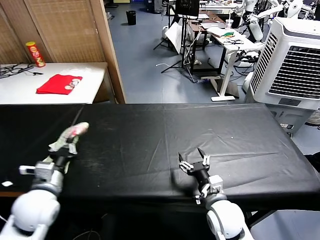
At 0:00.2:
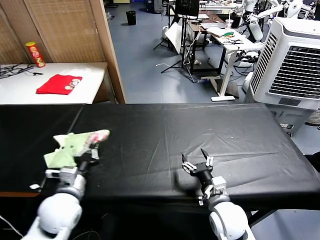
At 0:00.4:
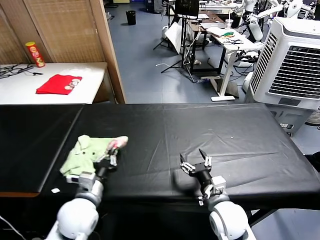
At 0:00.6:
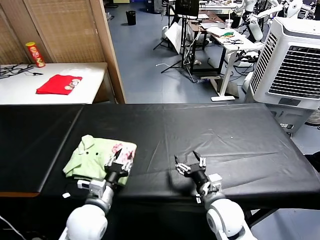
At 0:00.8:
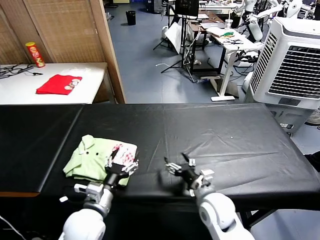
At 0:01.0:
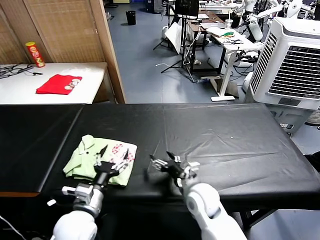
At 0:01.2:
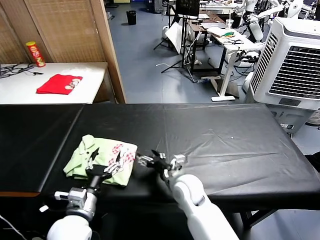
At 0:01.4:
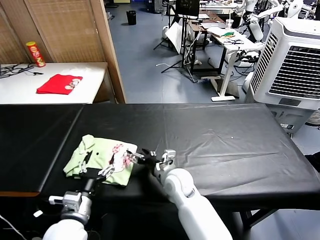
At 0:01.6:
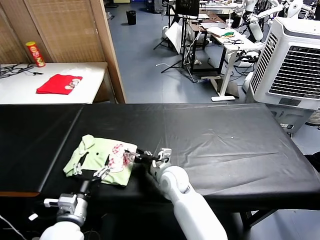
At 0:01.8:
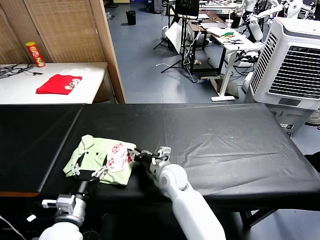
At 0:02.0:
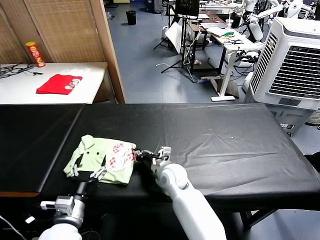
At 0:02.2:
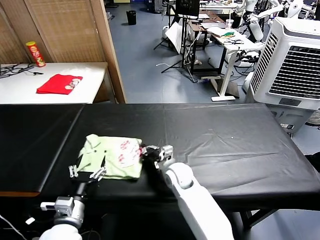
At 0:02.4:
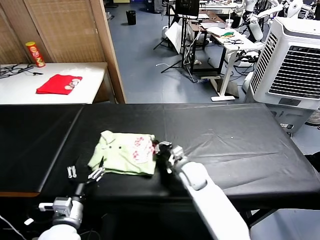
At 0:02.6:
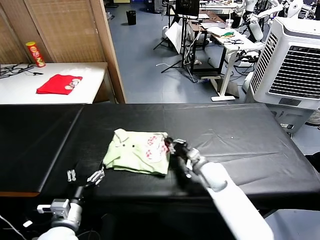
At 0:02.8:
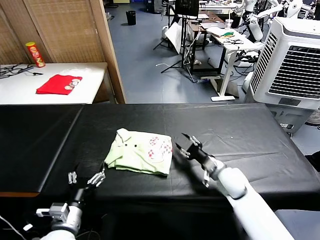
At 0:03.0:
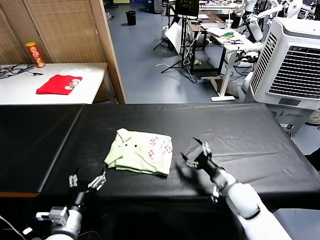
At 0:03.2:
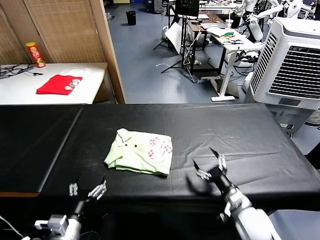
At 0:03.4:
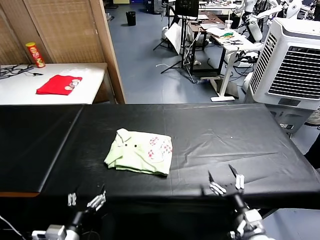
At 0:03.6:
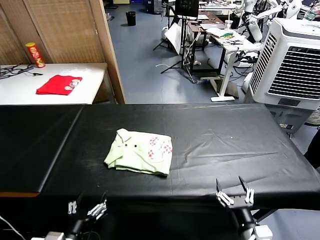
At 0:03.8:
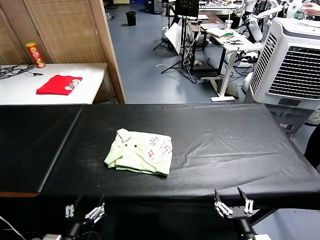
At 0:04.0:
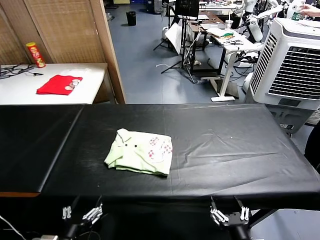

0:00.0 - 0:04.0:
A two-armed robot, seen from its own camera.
Task of the whole recording: fold and organize the clothes.
Step, 0:00.8 - 0:02.6: Drag the clothes to the center of the table.
0:00.0 - 0:01.4: The right gripper is displaced to the left and forward by about 15 cm; the left gripper moves to the right, downward and backward, approximately 10 cm, and opens.
0:01.4 - 0:02.6: The right gripper heads to the right, covering about 10 cm, and closes up.
0:02.6 - 0:04.0: The left gripper goes approximately 10 cm backward. Meanwhile the right gripper travels backward by approximately 30 cm, and opens.
